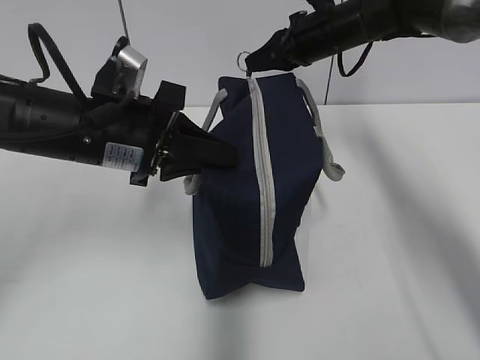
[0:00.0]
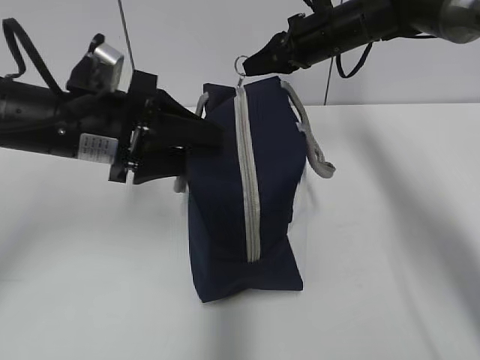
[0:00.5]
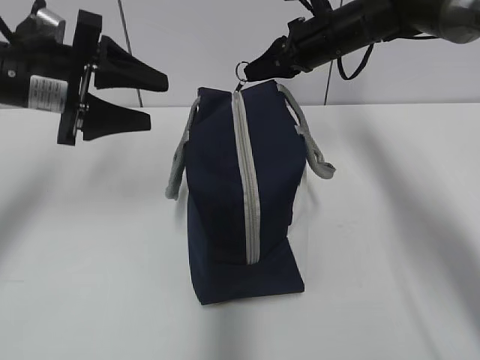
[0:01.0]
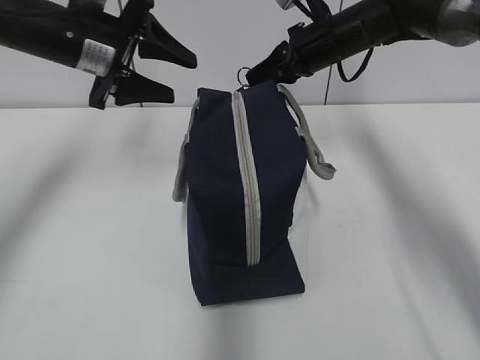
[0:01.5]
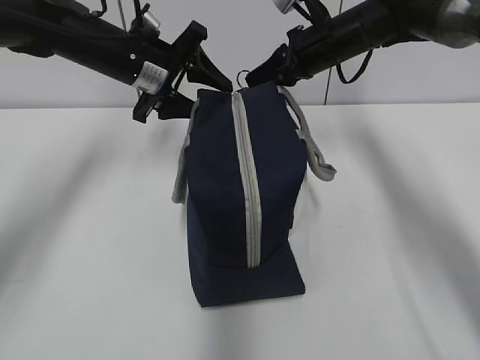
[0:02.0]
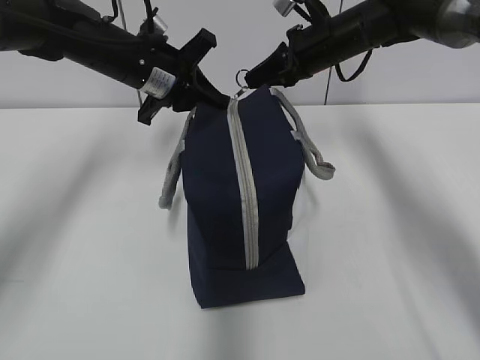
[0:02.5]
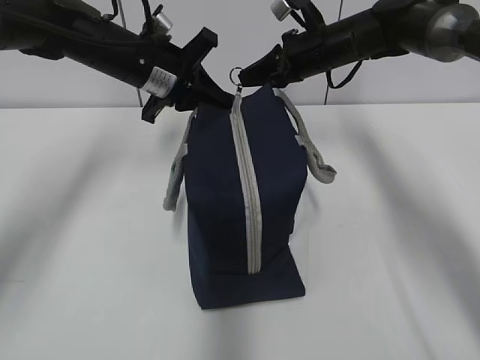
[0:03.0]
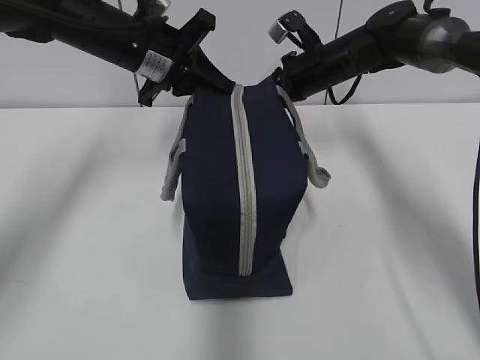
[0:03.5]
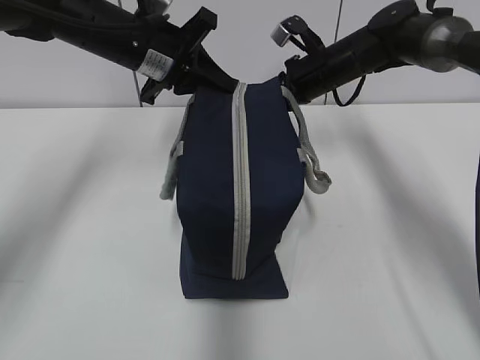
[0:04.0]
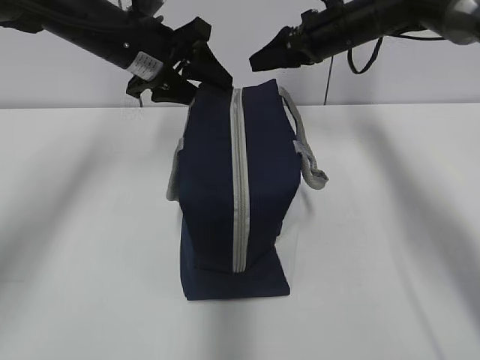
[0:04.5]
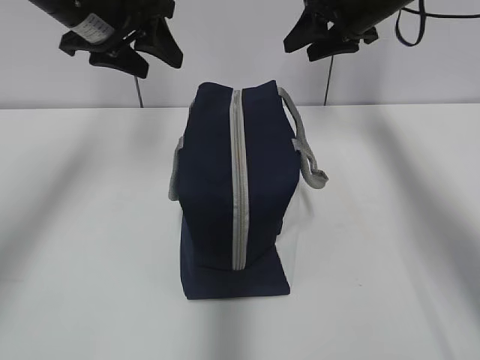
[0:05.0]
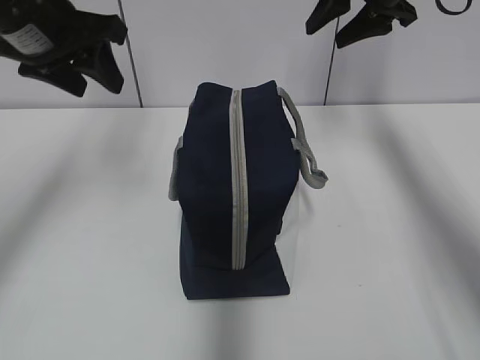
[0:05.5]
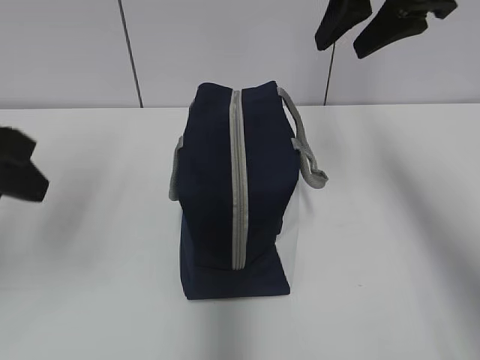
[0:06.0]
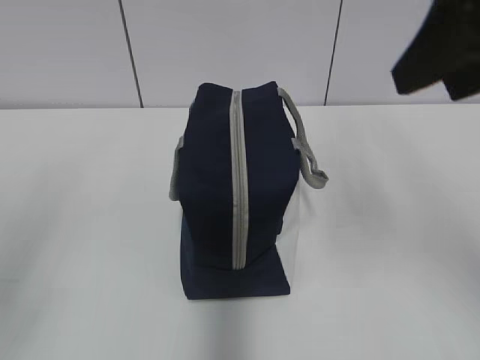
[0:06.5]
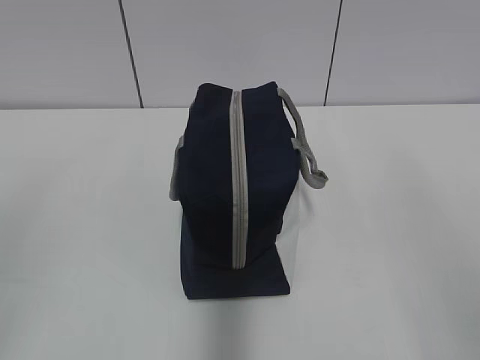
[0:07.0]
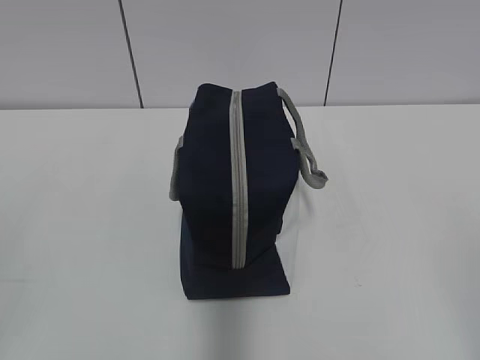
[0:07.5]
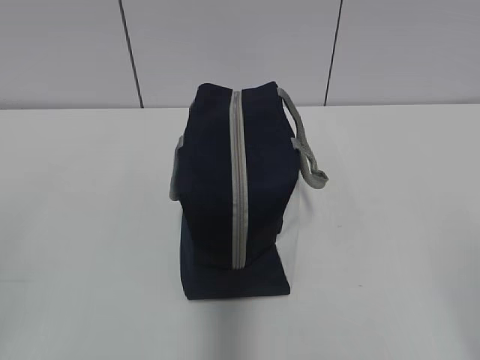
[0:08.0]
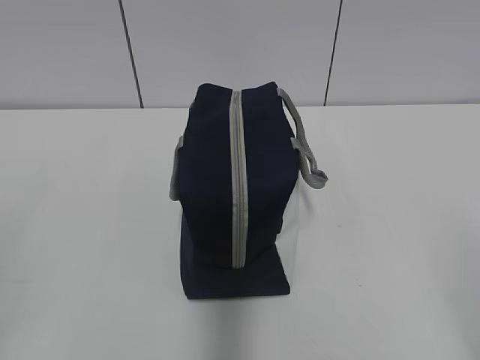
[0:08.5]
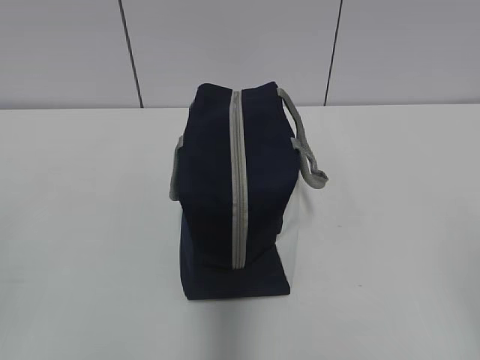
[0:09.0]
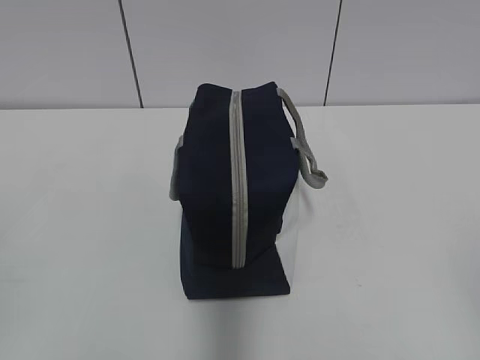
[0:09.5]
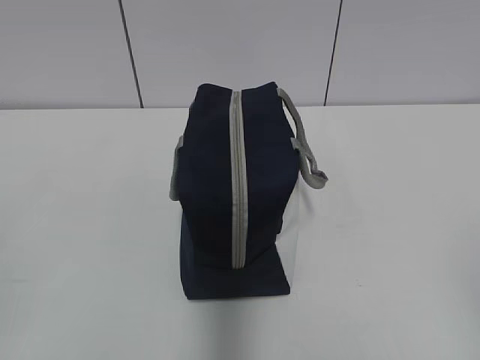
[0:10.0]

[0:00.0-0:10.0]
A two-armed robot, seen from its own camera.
0:00.0 to 0:02.0: The left gripper moves forward, some 15 cm, and opens its fingers.
0:02.0 to 0:04.0: The left gripper closes up.
0:04.0 to 0:06.0: The left gripper goes approximately 25 cm backward and to the left, and opens its fingers, while the right gripper heads upward and backward, covering approximately 25 cm, and opens its fingers.
0:06.0 to 0:08.0: The right gripper is displaced backward by approximately 35 cm. The left gripper travels backward by some 20 cm.

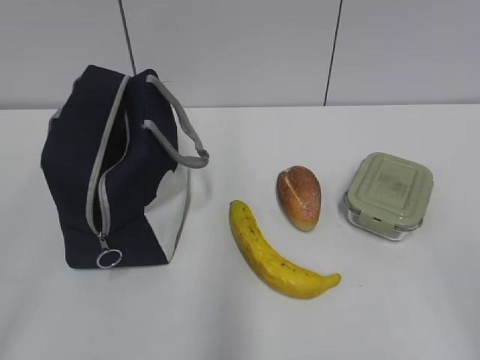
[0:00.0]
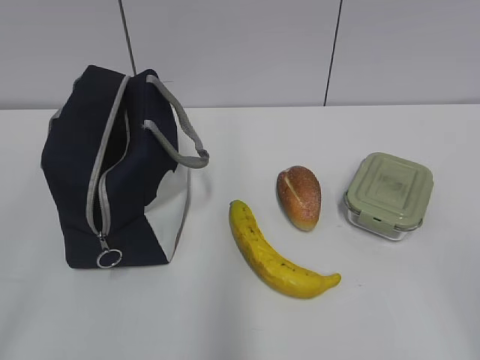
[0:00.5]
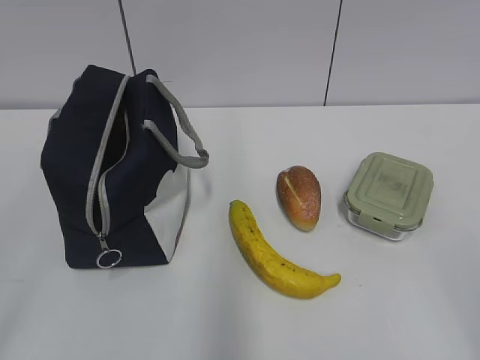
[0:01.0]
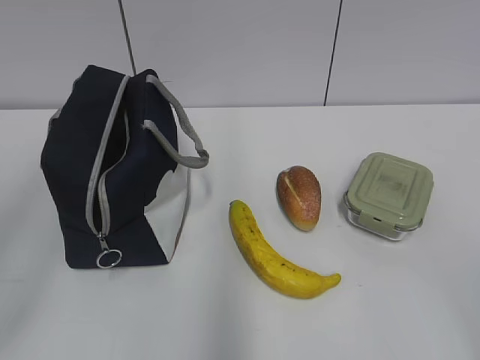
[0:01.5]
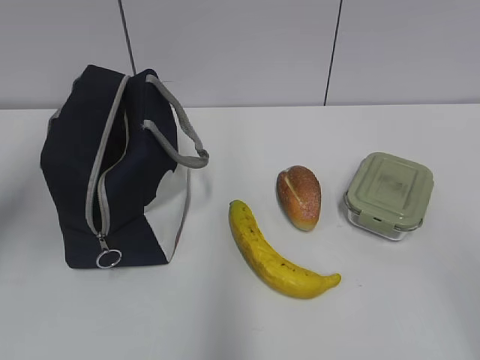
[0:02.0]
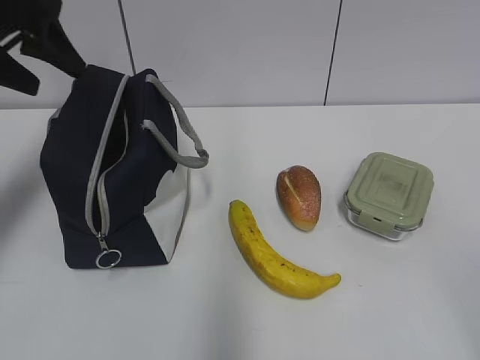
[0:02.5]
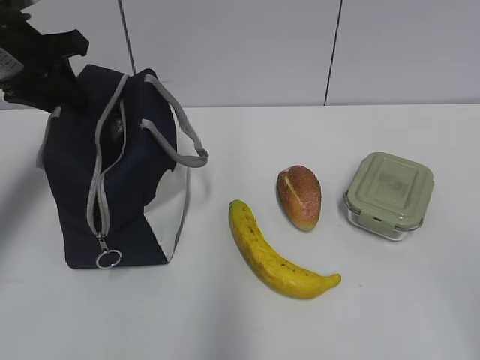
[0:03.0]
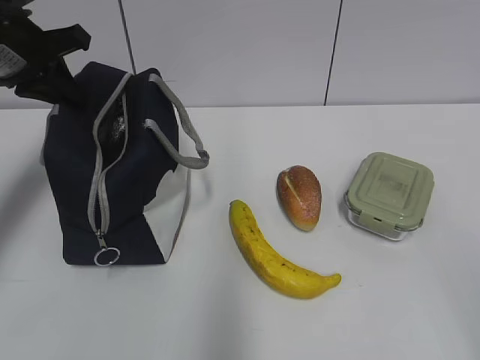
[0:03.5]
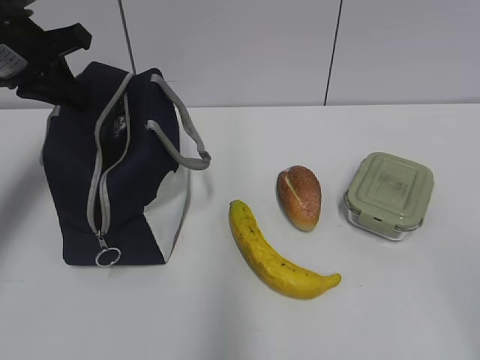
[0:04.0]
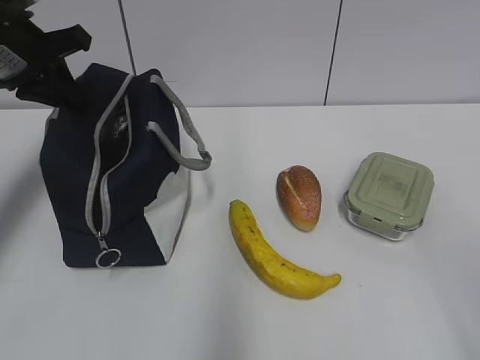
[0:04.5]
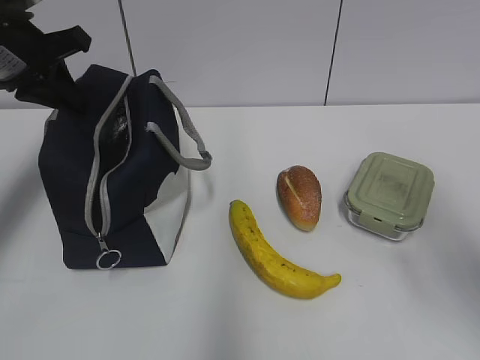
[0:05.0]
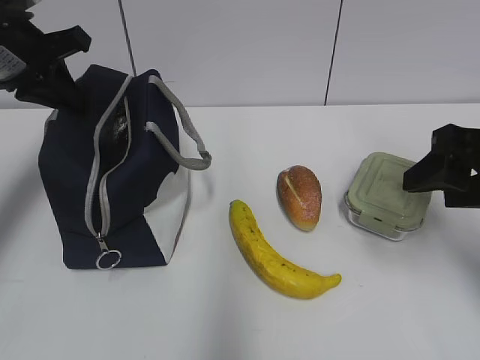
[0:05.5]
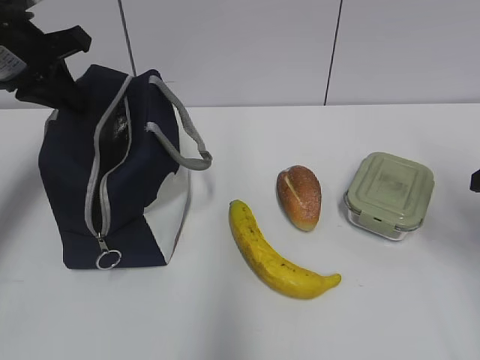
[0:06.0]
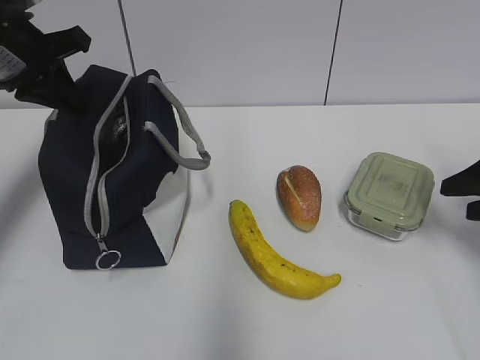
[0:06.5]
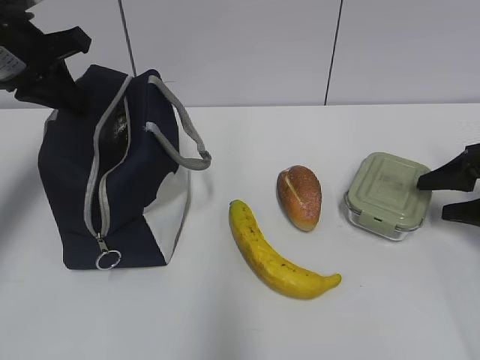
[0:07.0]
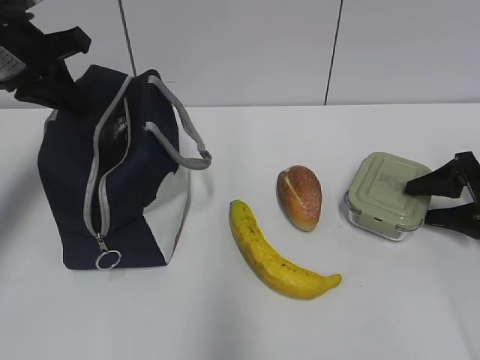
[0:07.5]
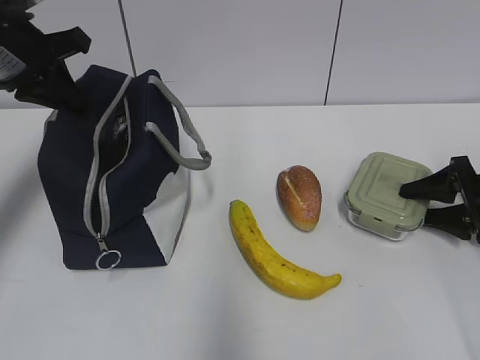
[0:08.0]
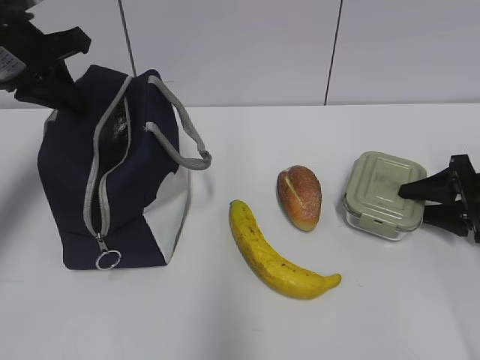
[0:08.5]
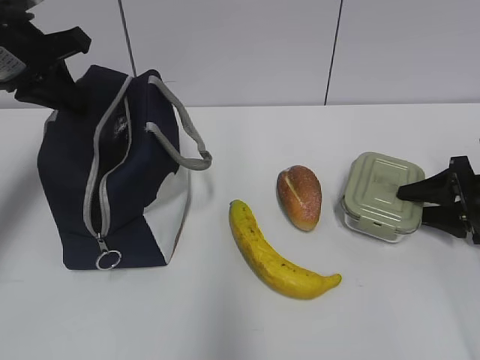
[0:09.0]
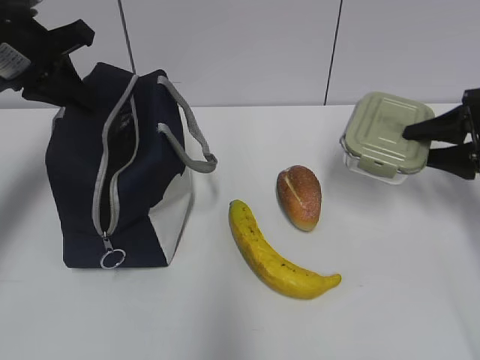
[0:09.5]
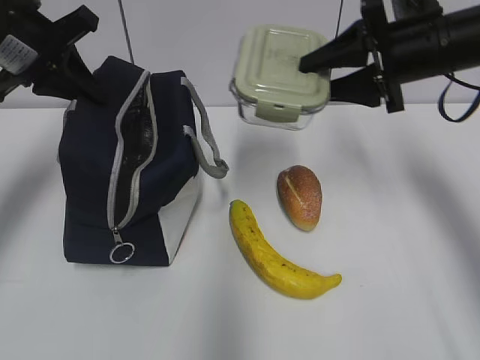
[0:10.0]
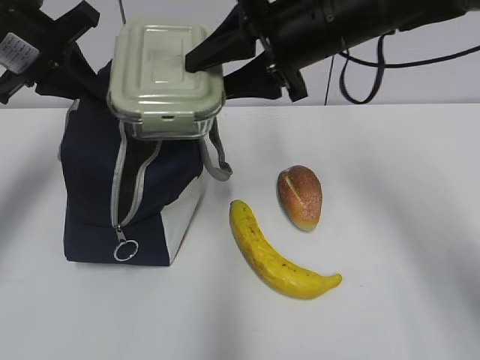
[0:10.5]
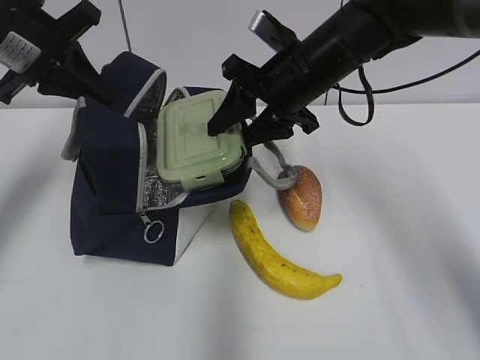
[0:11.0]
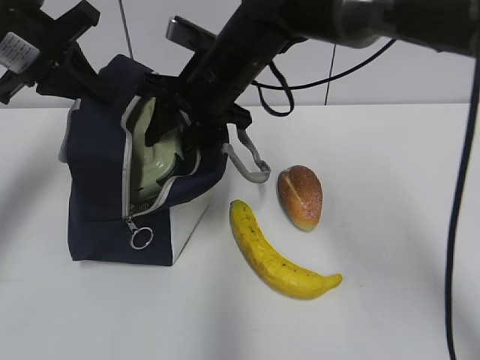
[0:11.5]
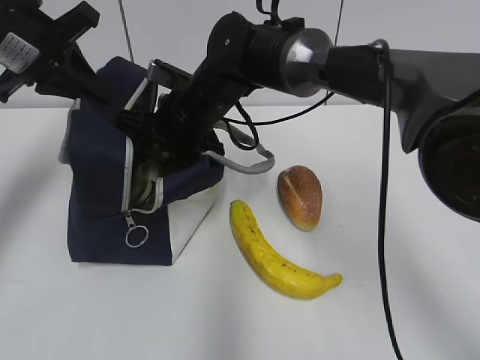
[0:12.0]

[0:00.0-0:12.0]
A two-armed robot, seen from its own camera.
0:02.0 to 0:04.0: The left gripper travels forward and downward by some 20 cm, and closes up.
0:04.0 to 0:06.0: The right gripper shifts roughly 25 cm forward.
0:06.0 to 0:08.0: The right gripper goes approximately 15 cm downward and forward.
0:08.0 to 0:10.0: The right gripper moves upward and to the left, about 25 cm.
0:10.0 to 0:12.0: The right gripper travels to the left by approximately 25 cm.

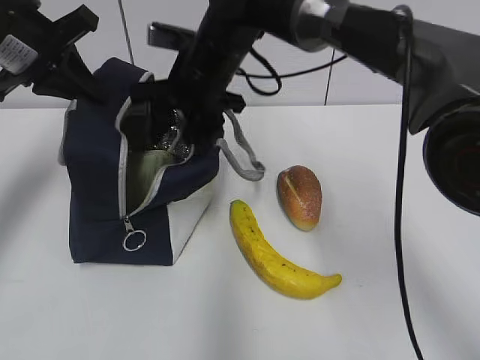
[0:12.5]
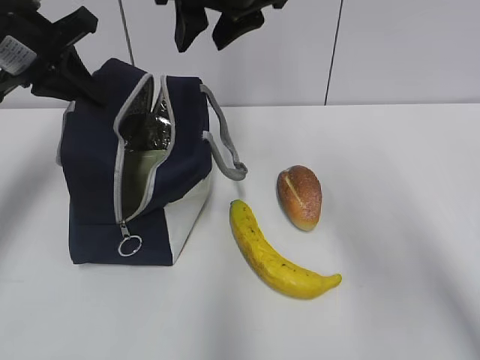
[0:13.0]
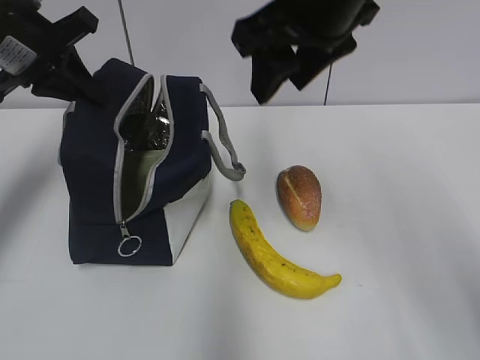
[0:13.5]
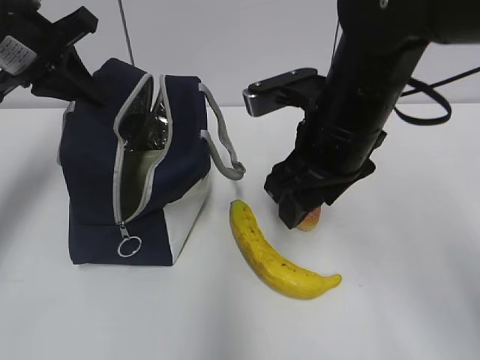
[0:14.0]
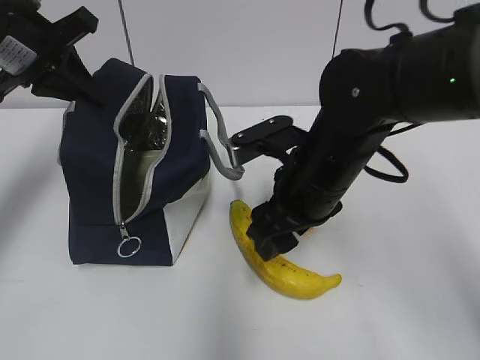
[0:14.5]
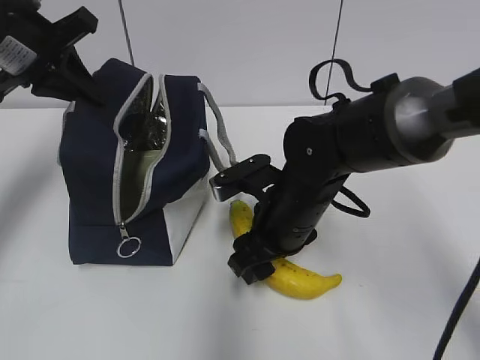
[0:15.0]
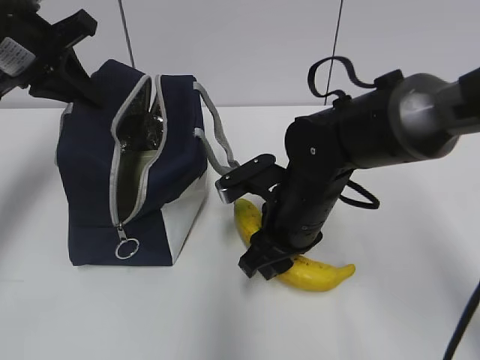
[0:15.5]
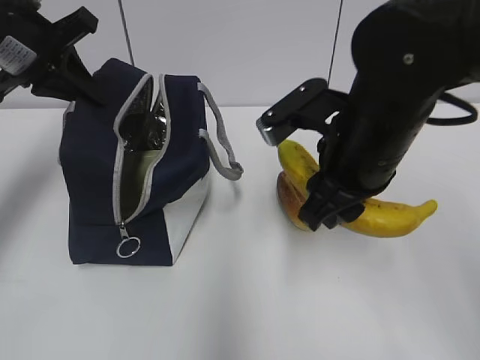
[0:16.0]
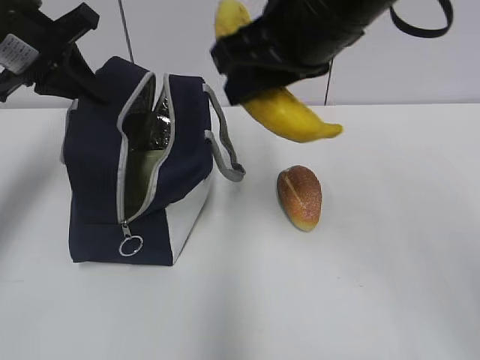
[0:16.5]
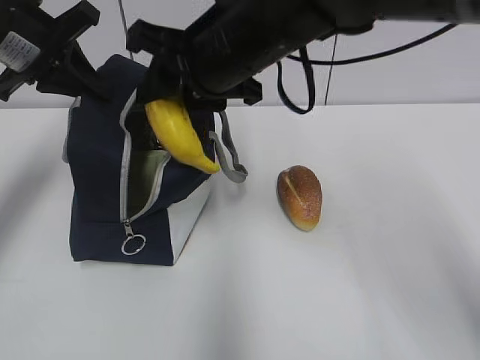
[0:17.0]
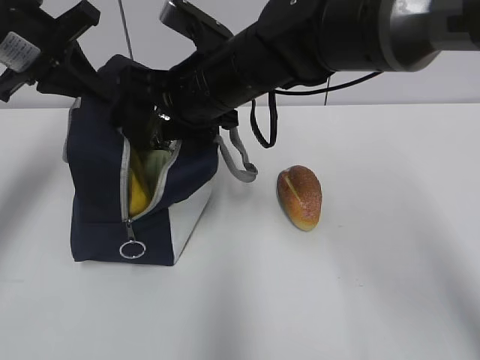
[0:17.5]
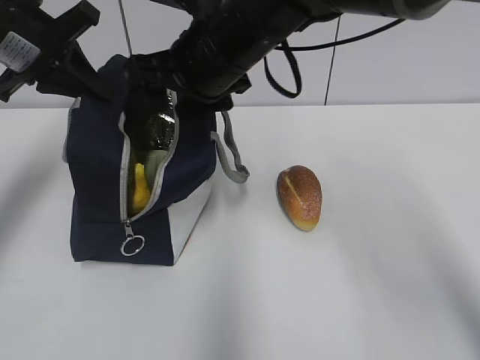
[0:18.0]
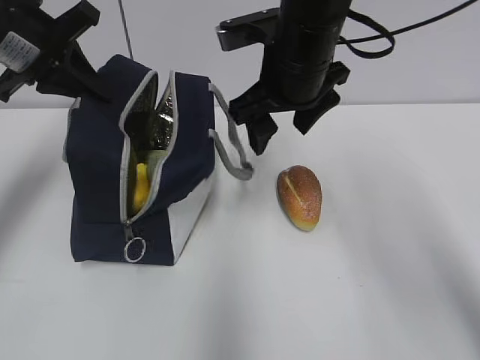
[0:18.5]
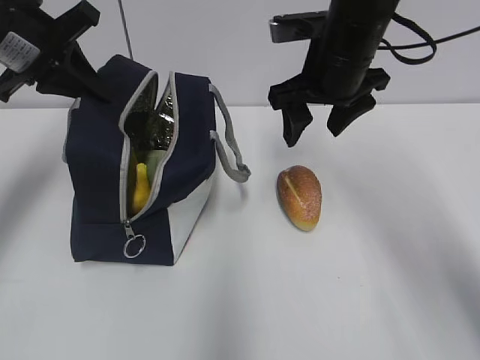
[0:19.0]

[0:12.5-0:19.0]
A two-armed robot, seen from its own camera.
0:12.5 to 0:14.5: The right gripper heads backward and to the right, covering roughly 15 cm, and travels upward and back again, about 15 cm each way.
0:14.5 to 0:17.0: The right gripper swings up and down, roughly 20 cm each way, with 2 reversals.
0:17.0 to 0:19.0: The right gripper heads to the right and forward, covering about 10 cm, and opens its fingers.
